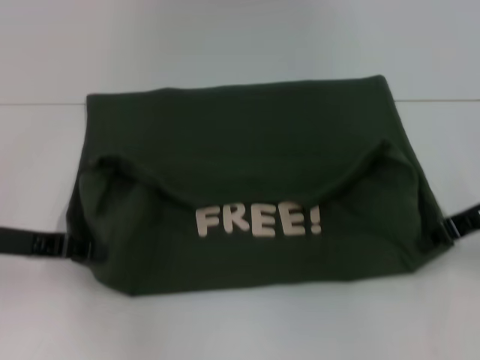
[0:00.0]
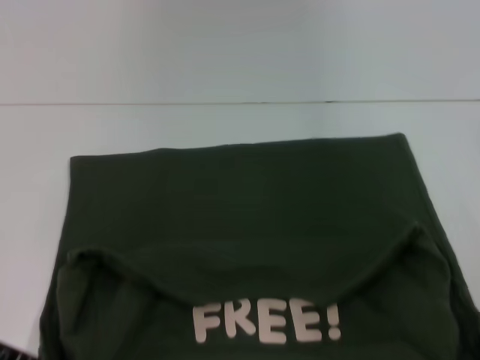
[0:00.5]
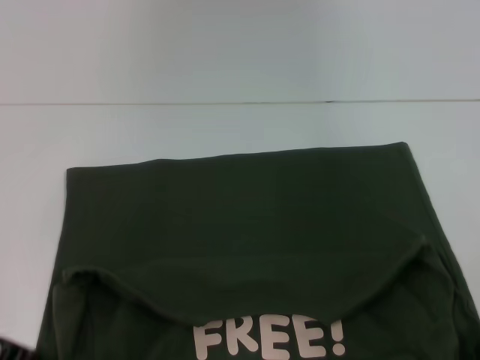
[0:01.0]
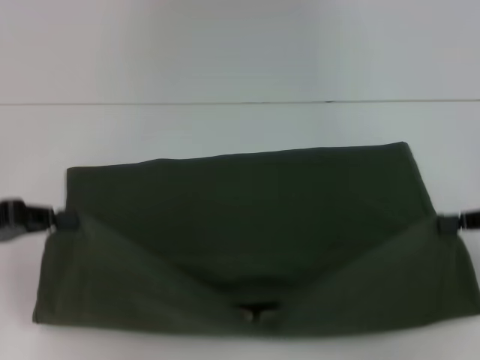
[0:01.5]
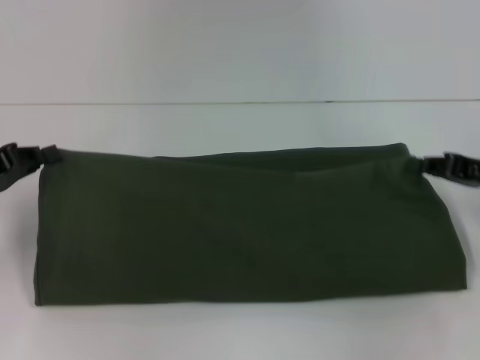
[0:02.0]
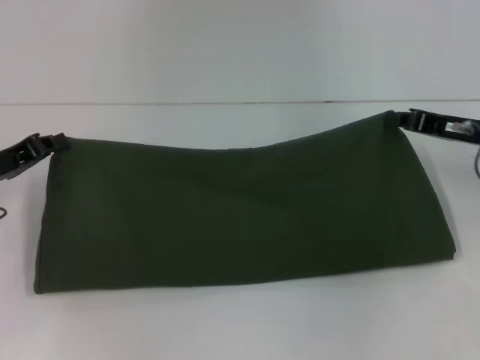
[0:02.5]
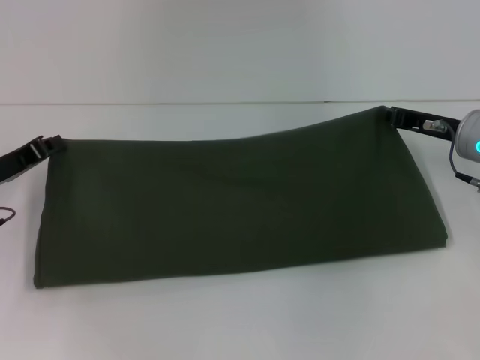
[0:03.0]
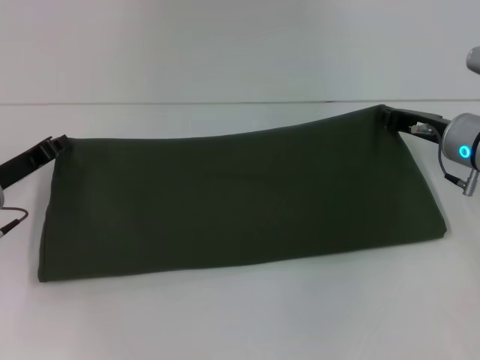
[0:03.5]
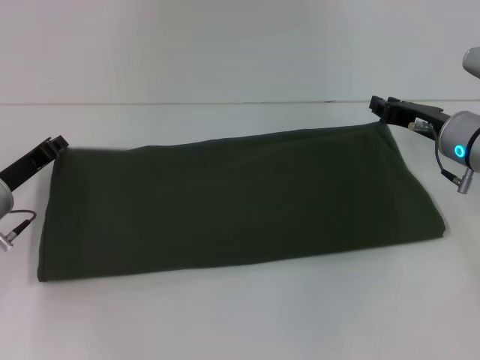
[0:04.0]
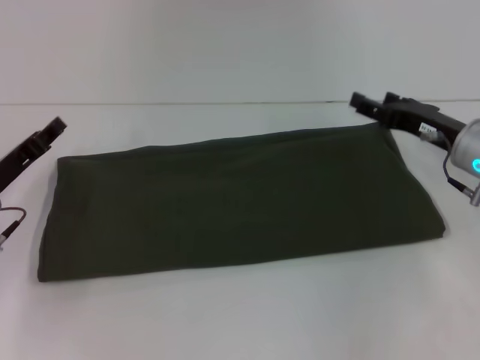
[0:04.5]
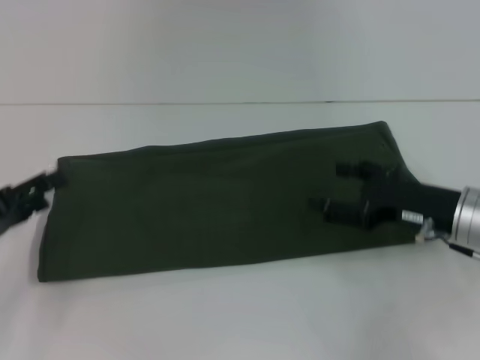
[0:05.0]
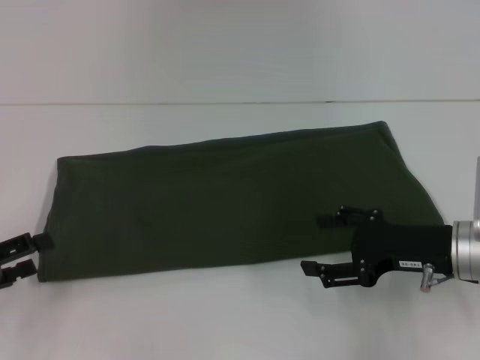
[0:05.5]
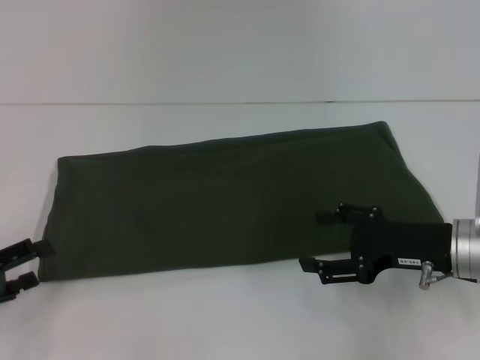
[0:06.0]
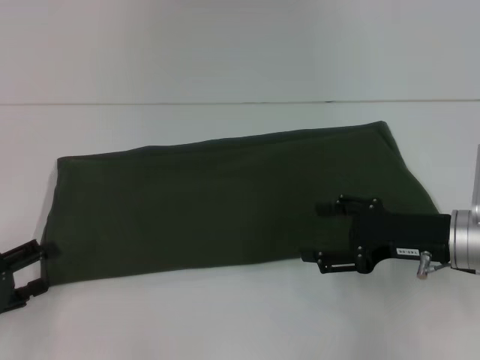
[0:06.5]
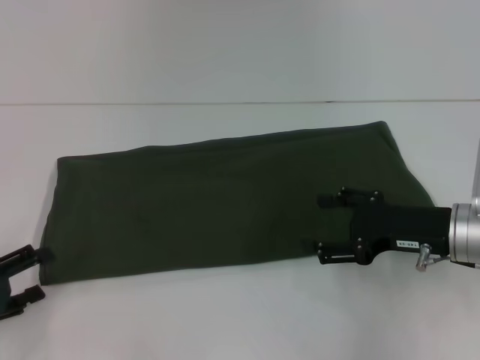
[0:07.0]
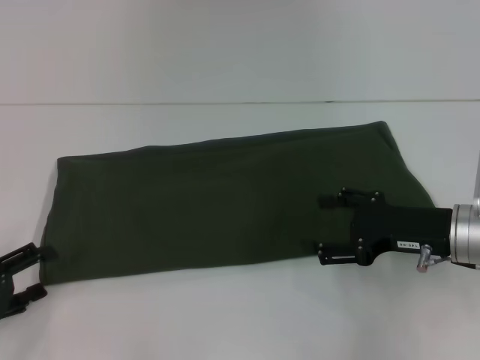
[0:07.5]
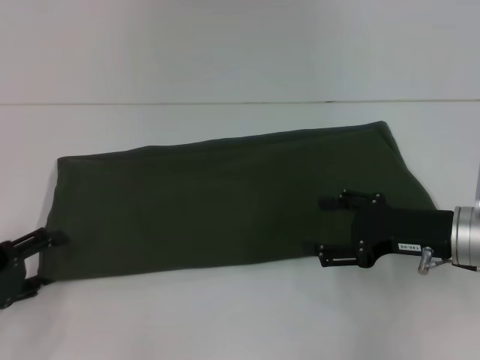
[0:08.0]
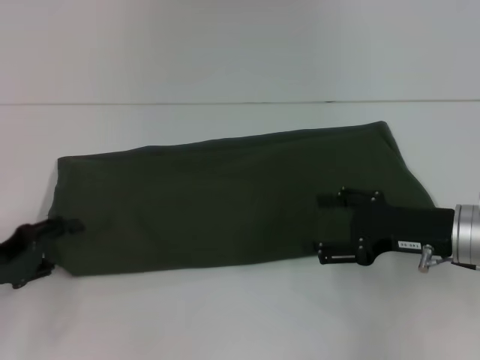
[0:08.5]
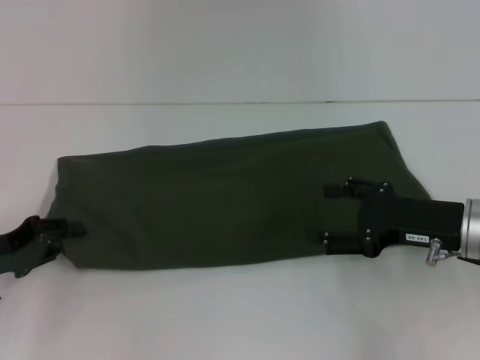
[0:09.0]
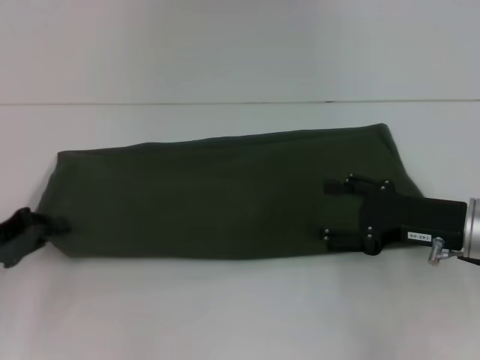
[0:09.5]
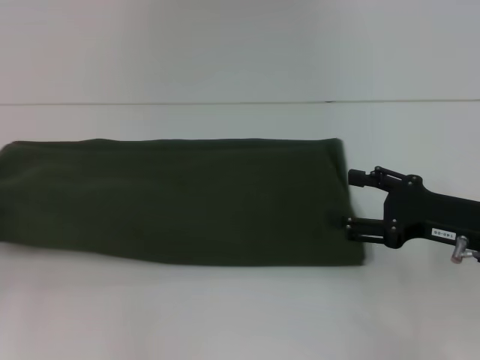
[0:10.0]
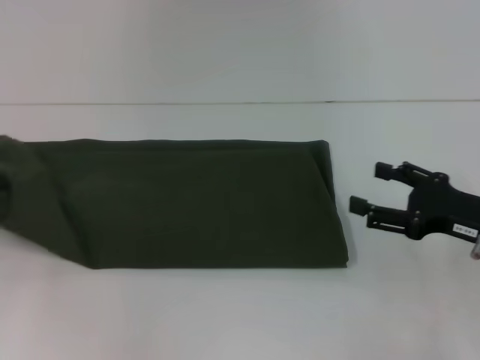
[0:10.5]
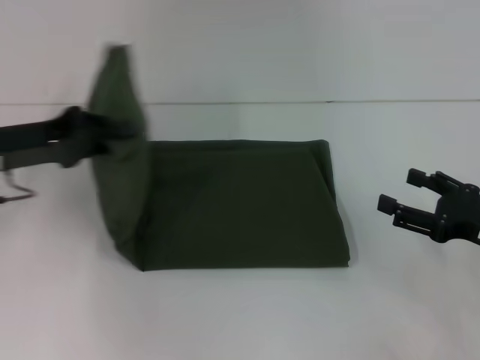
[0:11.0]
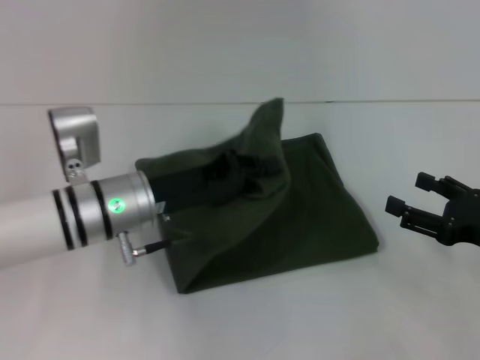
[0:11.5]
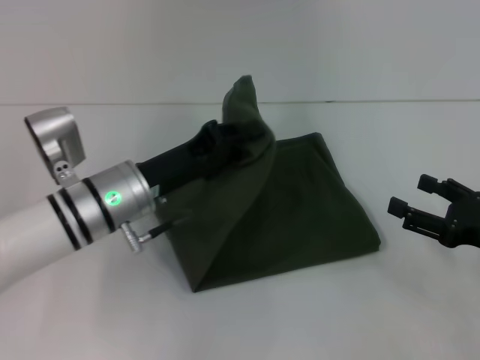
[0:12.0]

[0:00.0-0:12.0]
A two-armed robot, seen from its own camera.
Step, 0:01.0 to 0:03.5: Fold the clothes with your right hand.
0:02.0 to 0:04.0: The right gripper travels to the left and forward by some 10 cm, while the left gripper travels downward and to the right by some 10 cm.
0:04.0 to 0:06.0: The right gripper moves backward, about 10 cm, and opens. Meanwhile the left gripper moves backward and to the left, some 15 cm, and opens its fingers.
0:06.0 to 0:08.0: The grippers make only small movements.
0:08.0 to 0:10.0: The left gripper shifts roughly 5 cm to the left and upward, and closes up.
0:10.0 to 0:12.0: The left gripper shifts approximately 25 cm to the right. Meanwhile the right gripper shifts by about 5 cm.

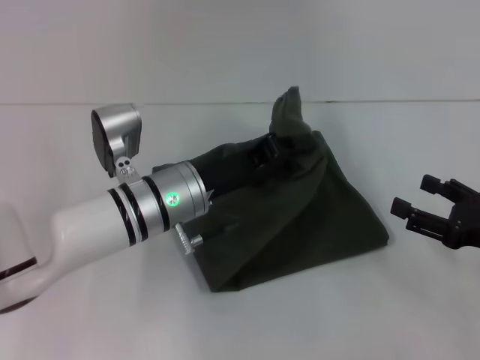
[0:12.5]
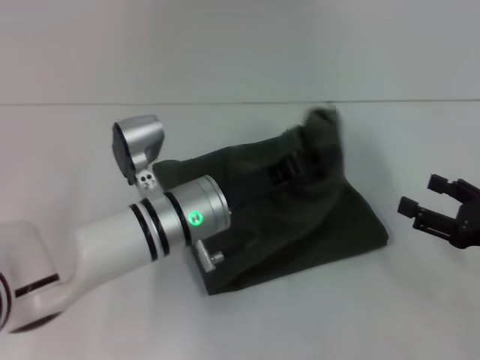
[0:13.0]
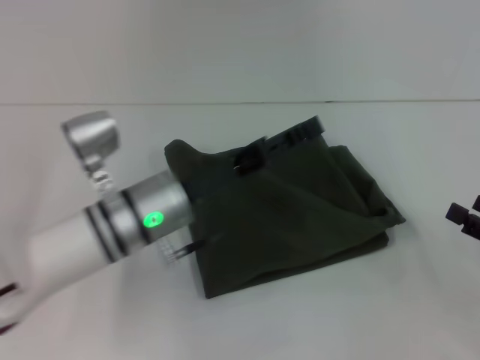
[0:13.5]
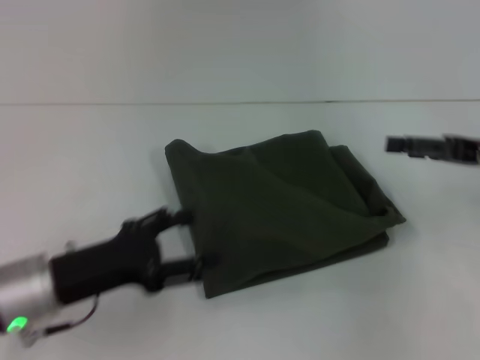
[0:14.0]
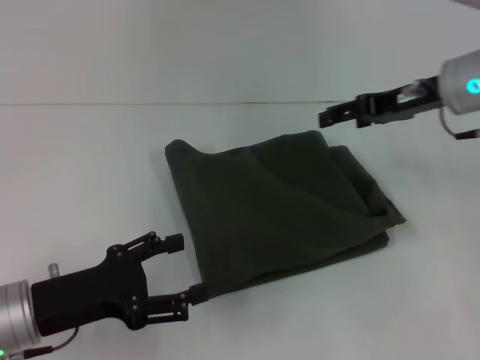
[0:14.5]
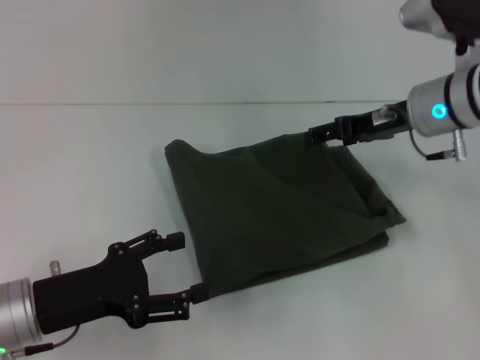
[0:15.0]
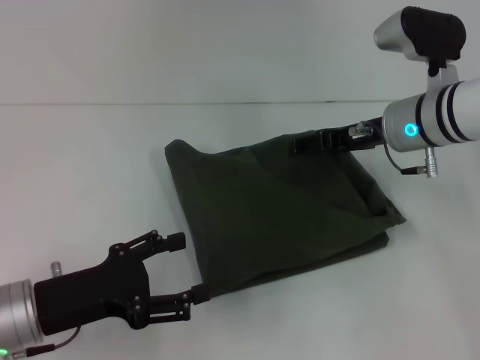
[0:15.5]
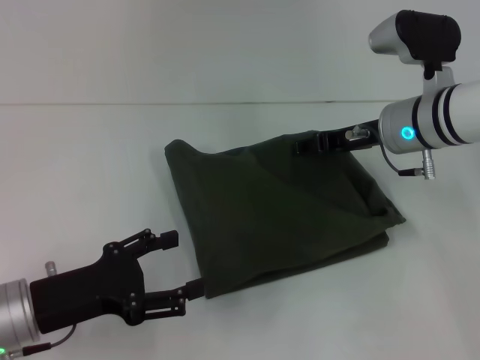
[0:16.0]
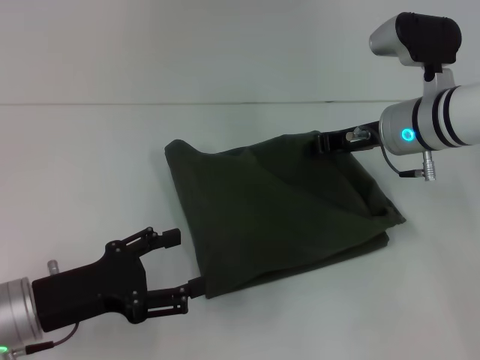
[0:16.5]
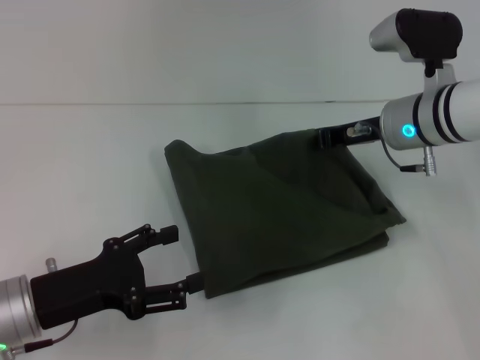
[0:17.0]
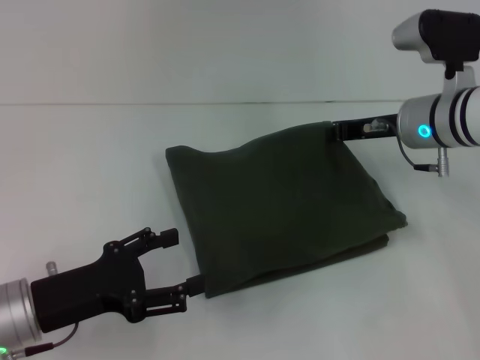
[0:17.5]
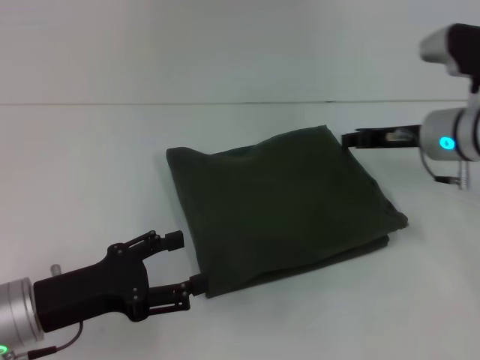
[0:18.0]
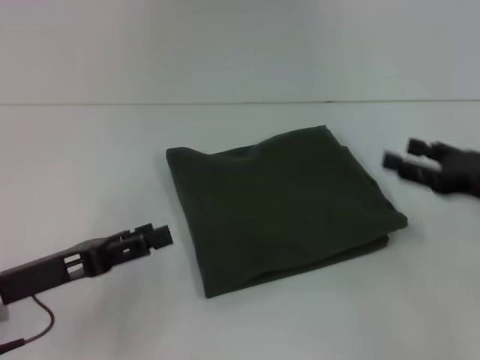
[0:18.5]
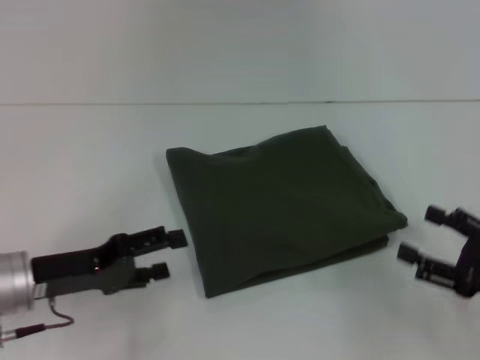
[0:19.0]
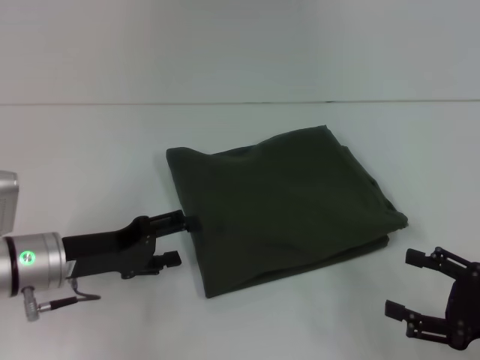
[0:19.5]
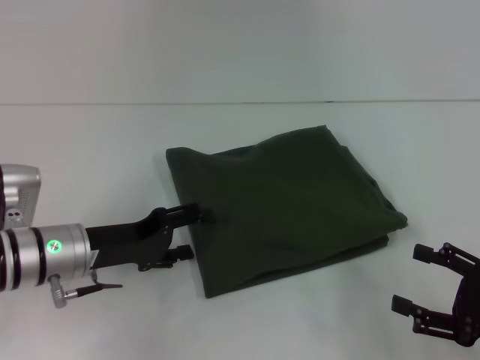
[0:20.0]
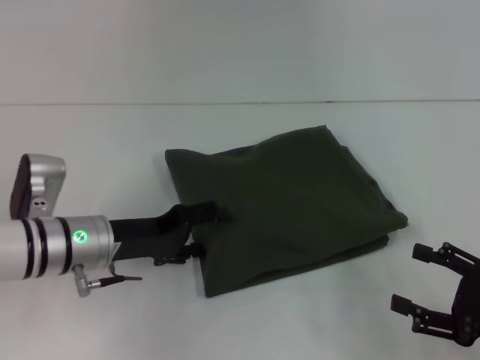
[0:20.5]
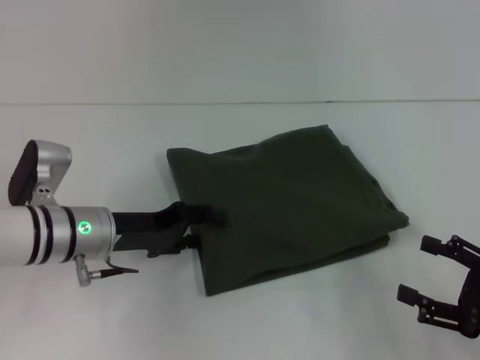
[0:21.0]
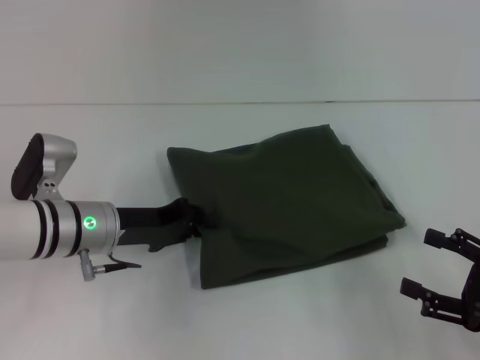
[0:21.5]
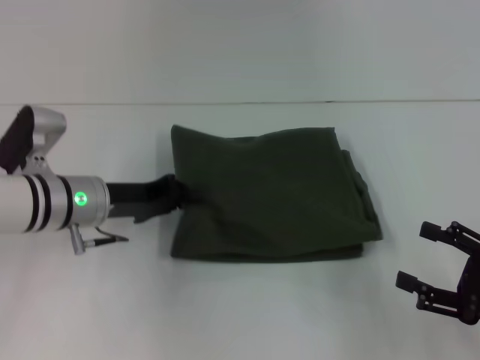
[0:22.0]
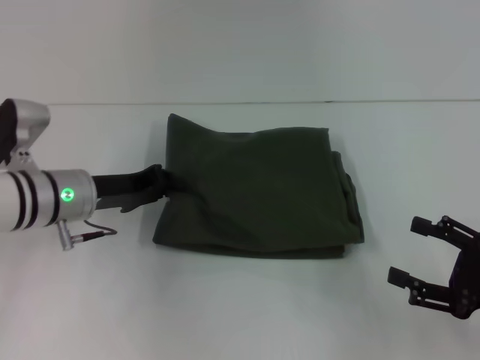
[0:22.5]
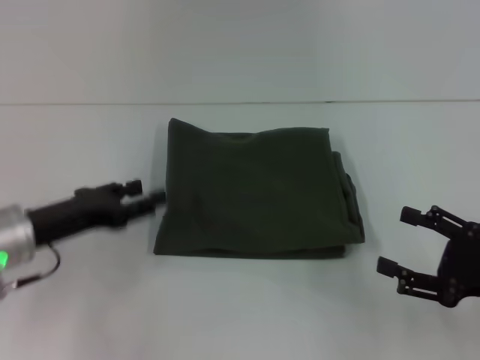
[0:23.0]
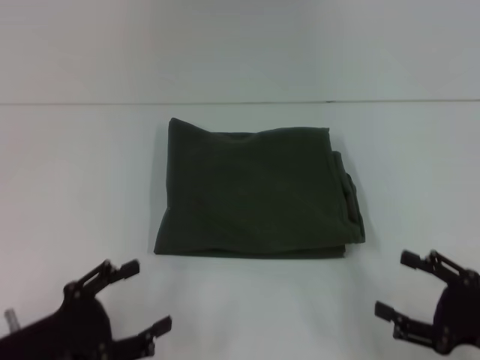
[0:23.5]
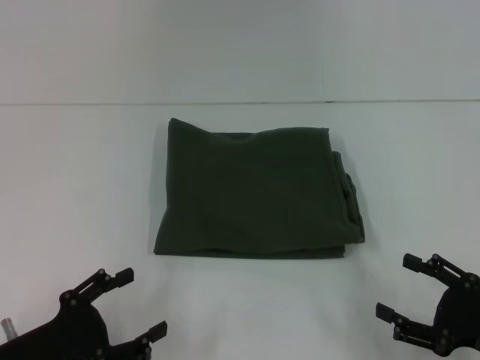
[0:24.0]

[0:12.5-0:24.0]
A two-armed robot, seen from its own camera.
0:12.5 to 0:14.5: The left gripper shifts approximately 20 cm to the left and backward, and opens. The right gripper goes about 20 cm forward, upward and to the left.
0:14.5 to 0:16.5: The right gripper is displaced downward by approximately 5 cm, and closes its fingers.
0:16.5 to 0:18.5: The right gripper moves to the right and backward, some 15 cm.
0:18.5 to 0:20.0: The left gripper shifts roughly 5 cm forward; the right gripper travels backward and downward by about 10 cm, and opens.
0:20.0 to 0:22.0: The left gripper moves forward, about 5 cm, and closes up.
0:22.0 to 0:24.0: The left gripper heads backward, covering roughly 20 cm, and opens its fingers.
